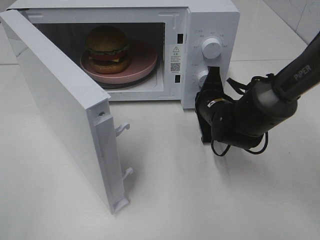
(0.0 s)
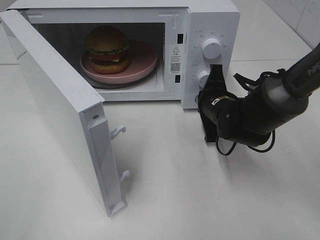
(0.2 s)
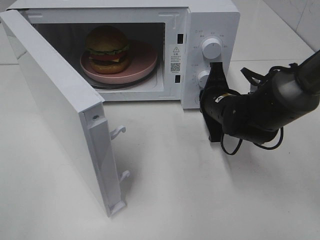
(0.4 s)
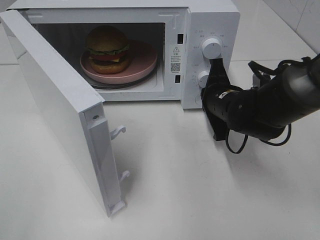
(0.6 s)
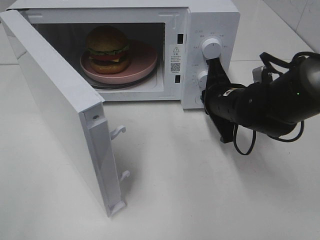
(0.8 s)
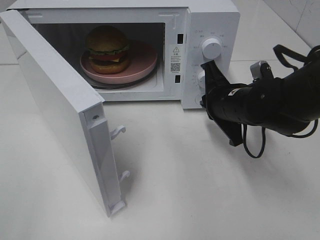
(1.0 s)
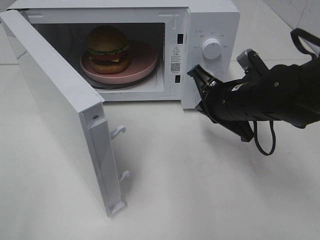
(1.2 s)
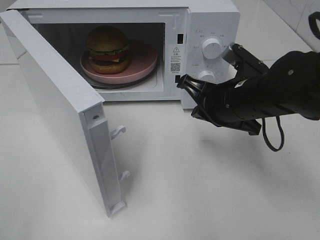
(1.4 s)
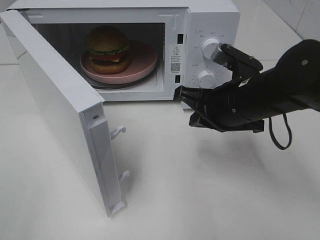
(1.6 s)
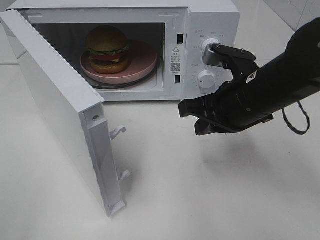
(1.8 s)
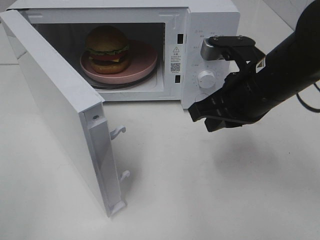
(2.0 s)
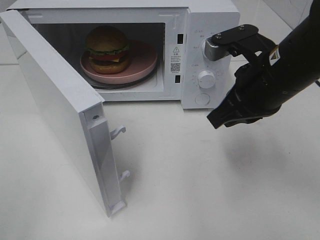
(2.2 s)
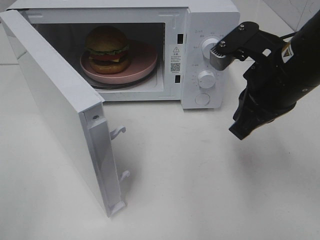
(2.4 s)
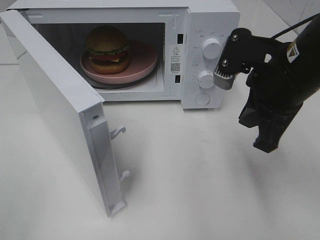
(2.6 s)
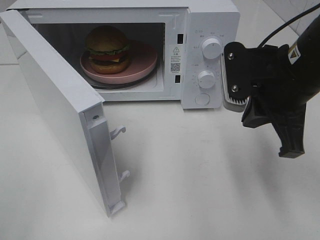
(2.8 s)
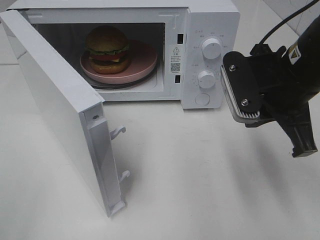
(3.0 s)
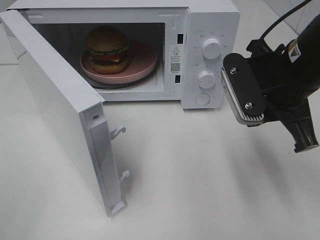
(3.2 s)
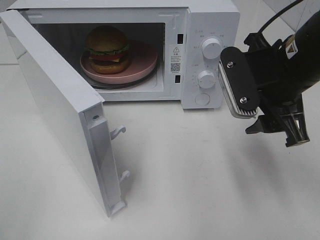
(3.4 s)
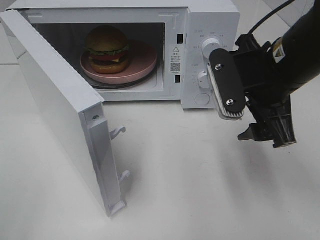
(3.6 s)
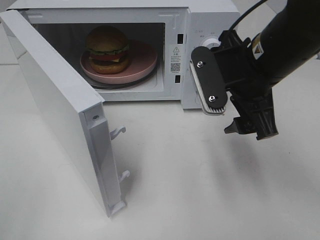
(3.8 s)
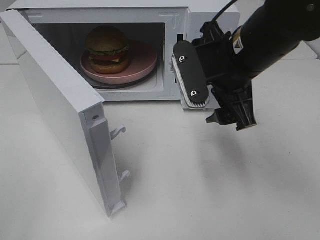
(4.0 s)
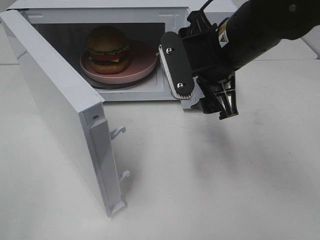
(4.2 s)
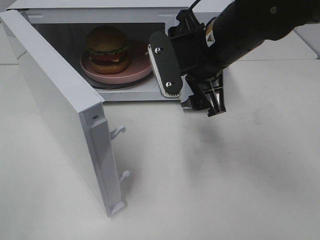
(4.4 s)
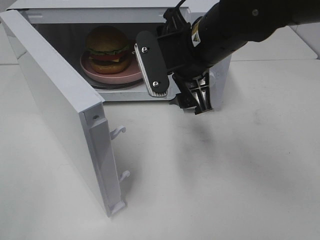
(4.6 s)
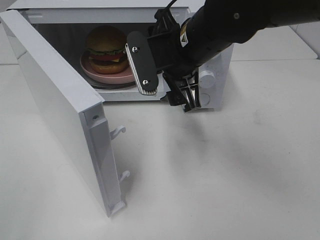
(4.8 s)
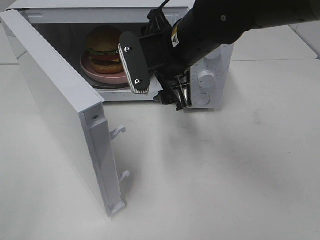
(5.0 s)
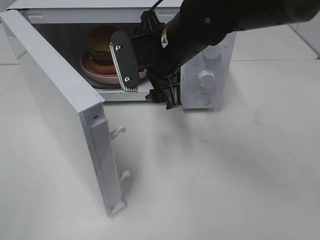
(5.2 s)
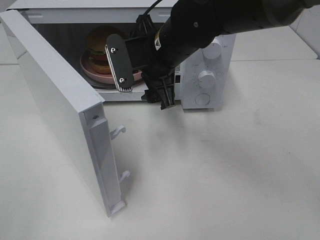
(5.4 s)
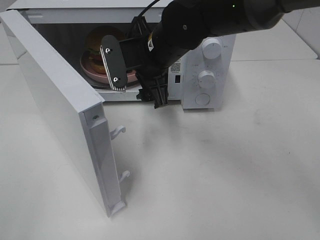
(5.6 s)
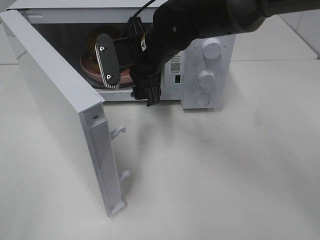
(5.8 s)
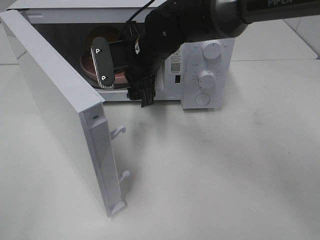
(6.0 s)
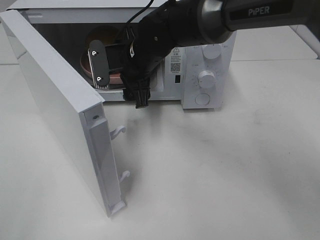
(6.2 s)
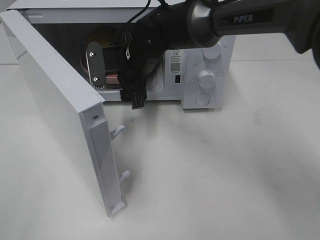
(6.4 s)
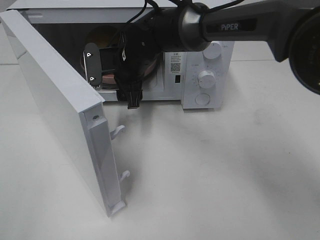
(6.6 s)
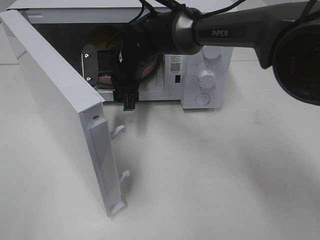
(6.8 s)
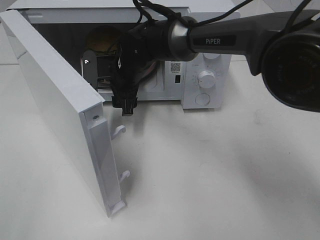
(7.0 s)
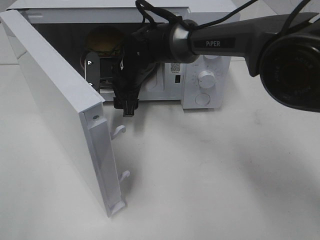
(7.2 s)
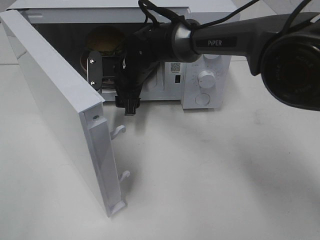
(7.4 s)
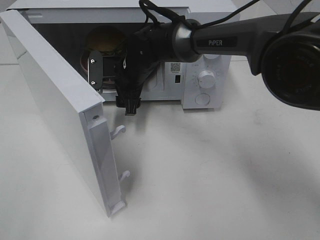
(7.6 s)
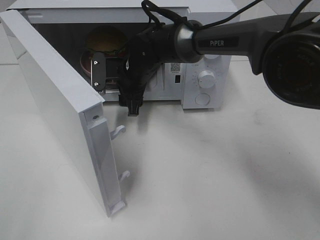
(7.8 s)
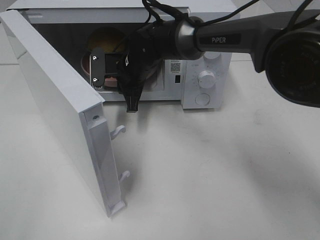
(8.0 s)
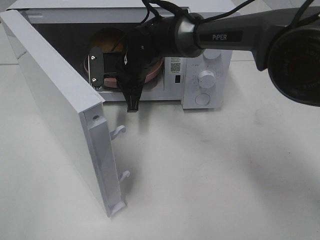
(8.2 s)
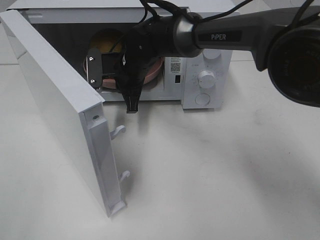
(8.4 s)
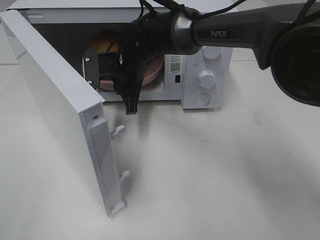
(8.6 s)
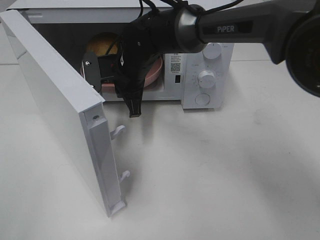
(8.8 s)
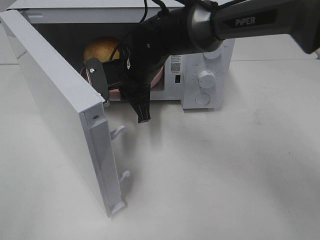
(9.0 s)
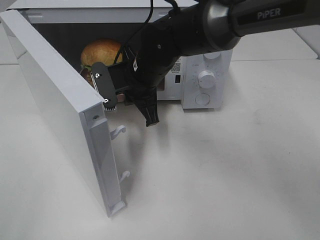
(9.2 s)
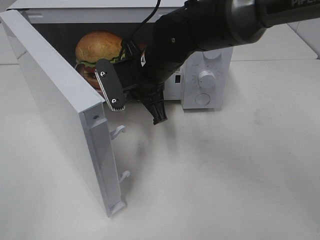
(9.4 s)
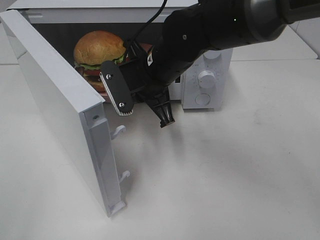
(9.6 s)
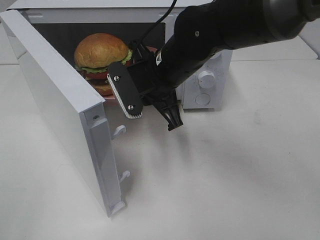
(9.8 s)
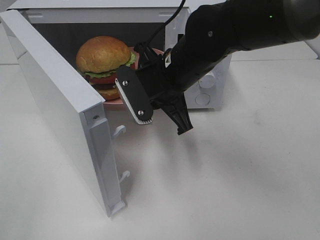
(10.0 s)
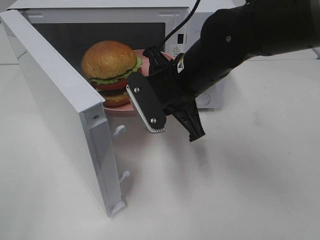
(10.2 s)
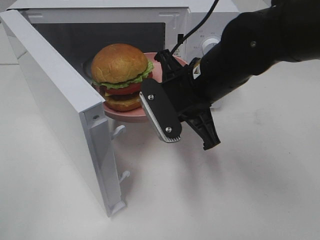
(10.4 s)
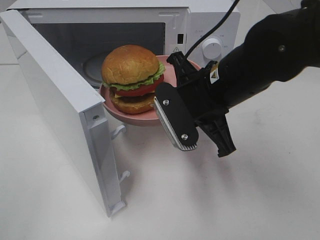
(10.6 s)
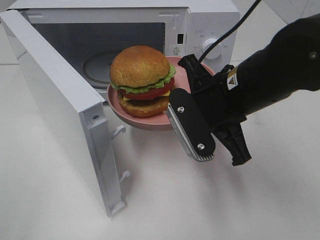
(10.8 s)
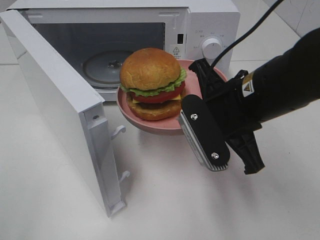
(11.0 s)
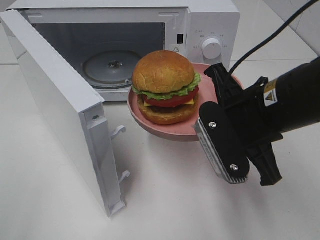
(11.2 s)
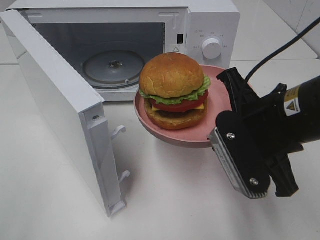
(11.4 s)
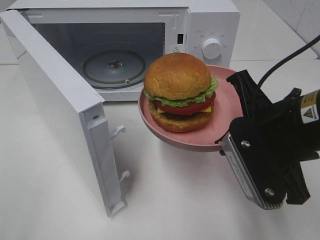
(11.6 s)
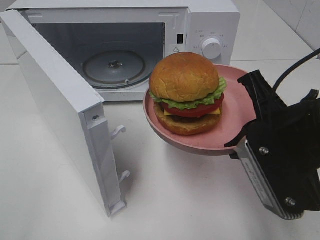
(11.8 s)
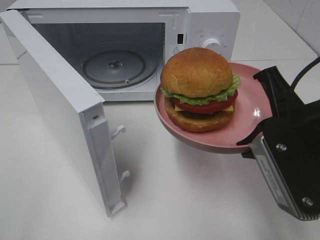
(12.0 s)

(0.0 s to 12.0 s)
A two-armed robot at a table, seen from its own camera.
Task of the whole recording: Heat the burger.
Step, 1.2 s - 8.0 s: Right hand: grab the plate with the hamburger.
0.0 s - 1.6 s: The right gripper moves upward and backward, roughly 15 cm.
1.6 s - 3.0 s: The right gripper moves upward, approximately 5 cm.
3.0 s - 4.4 s: The right gripper is displaced to the left and forward by approximately 10 cm, and opens its fingers.
4.4 s - 6.0 s: The right gripper travels to the left, forward and downward by about 15 cm.
6.0 s - 7.6 s: The right gripper heads downward and forward, covering about 10 cm.
7.6 s - 9.0 s: The right gripper shifts by approximately 5 cm, and closes.
9.0 s - 10.4 s: The right gripper moves backward and to the right, some 15 cm.
10.4 s - 12.0 s: The right gripper shifts some 15 cm backward and to the right.

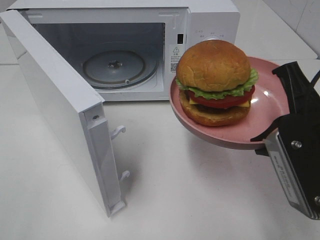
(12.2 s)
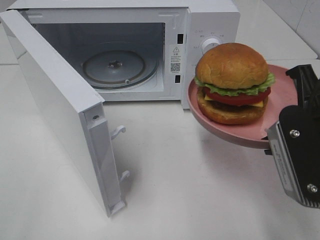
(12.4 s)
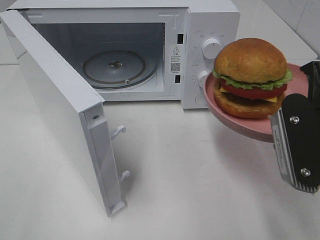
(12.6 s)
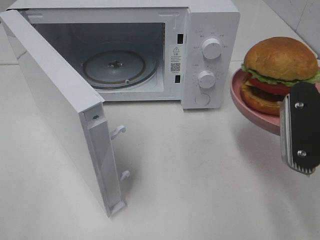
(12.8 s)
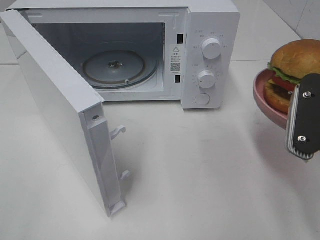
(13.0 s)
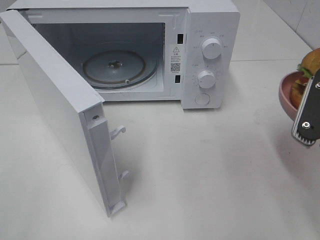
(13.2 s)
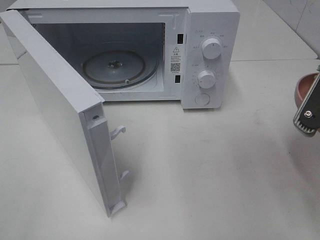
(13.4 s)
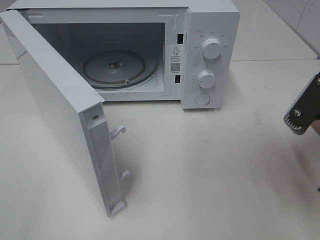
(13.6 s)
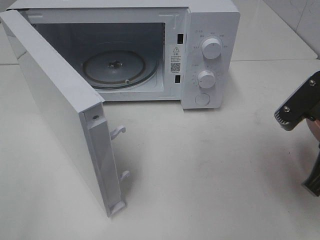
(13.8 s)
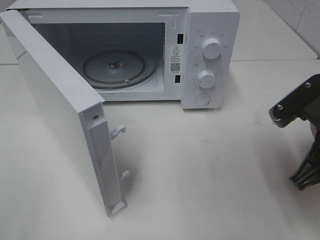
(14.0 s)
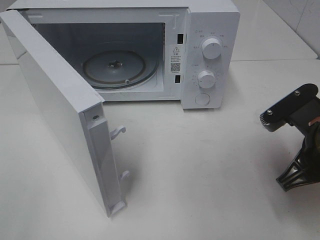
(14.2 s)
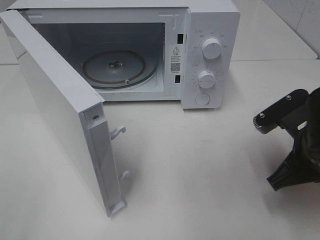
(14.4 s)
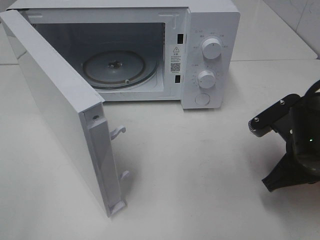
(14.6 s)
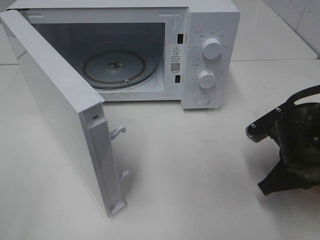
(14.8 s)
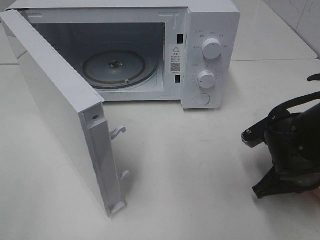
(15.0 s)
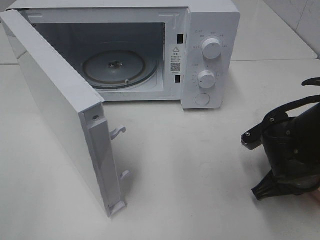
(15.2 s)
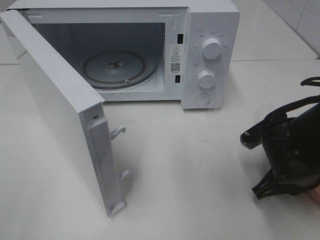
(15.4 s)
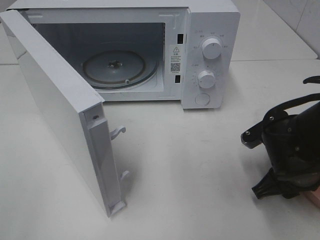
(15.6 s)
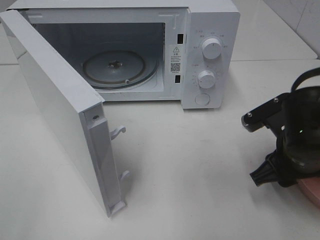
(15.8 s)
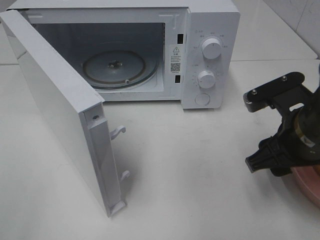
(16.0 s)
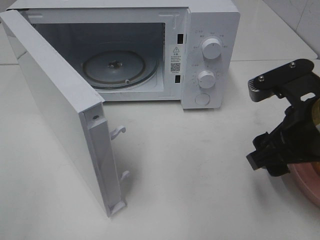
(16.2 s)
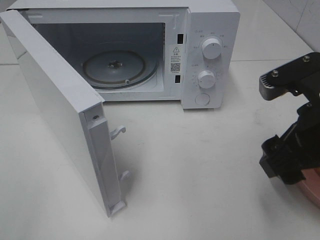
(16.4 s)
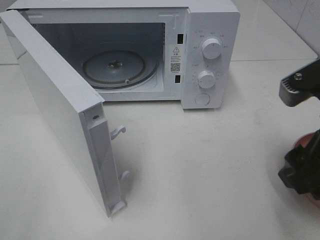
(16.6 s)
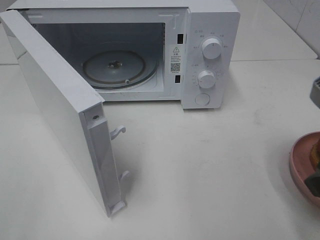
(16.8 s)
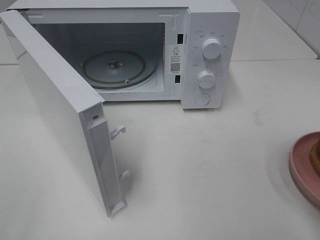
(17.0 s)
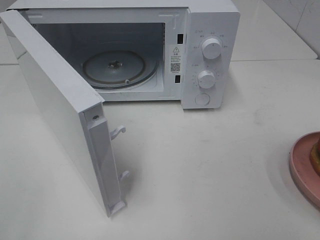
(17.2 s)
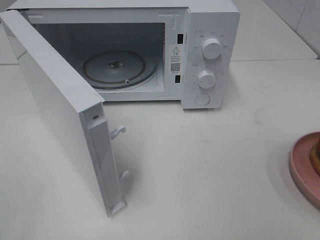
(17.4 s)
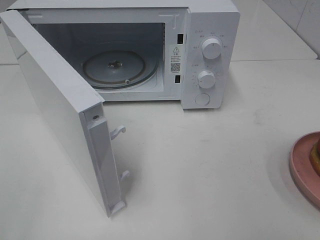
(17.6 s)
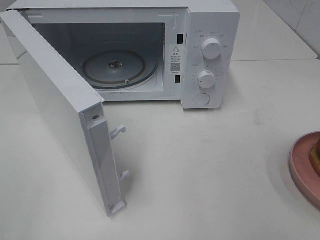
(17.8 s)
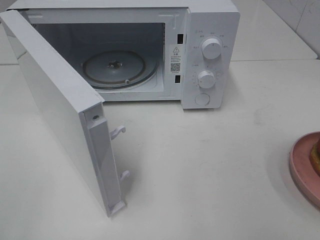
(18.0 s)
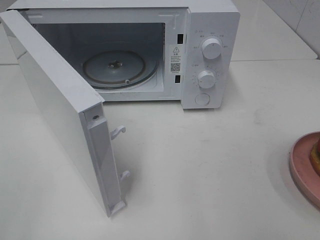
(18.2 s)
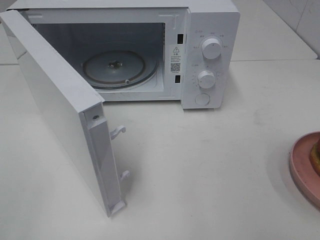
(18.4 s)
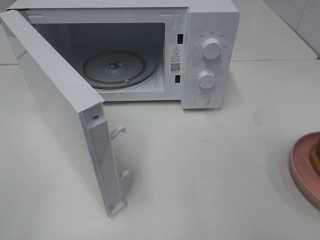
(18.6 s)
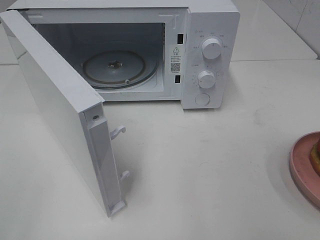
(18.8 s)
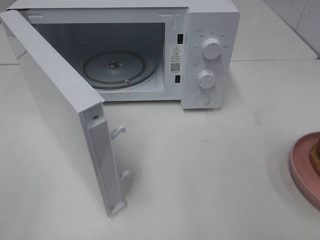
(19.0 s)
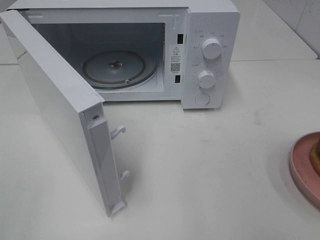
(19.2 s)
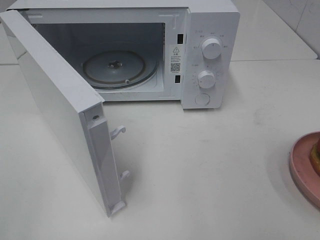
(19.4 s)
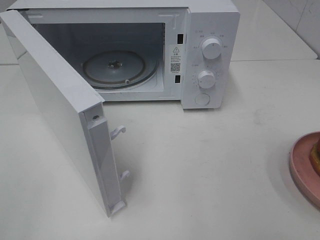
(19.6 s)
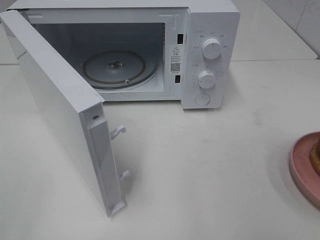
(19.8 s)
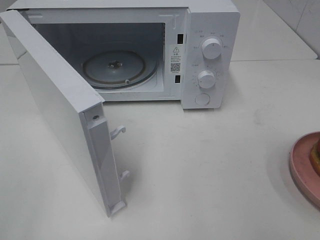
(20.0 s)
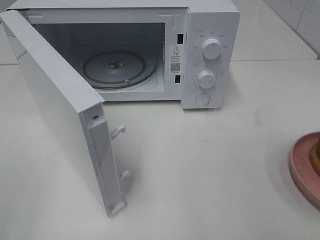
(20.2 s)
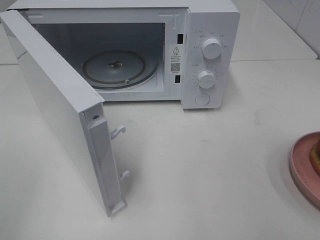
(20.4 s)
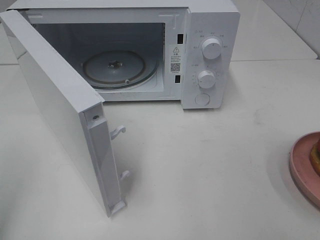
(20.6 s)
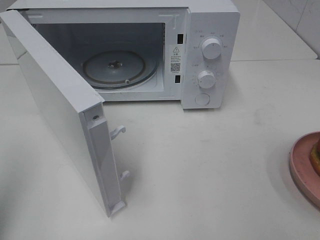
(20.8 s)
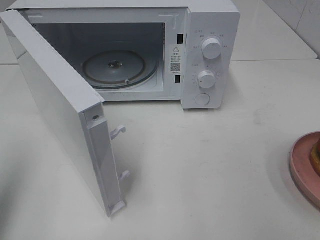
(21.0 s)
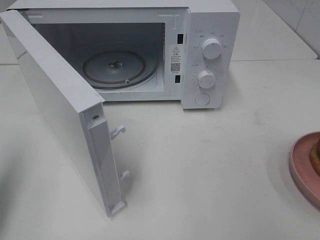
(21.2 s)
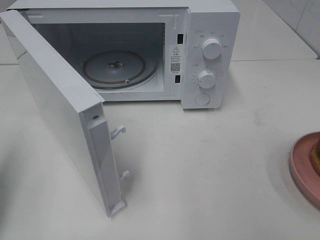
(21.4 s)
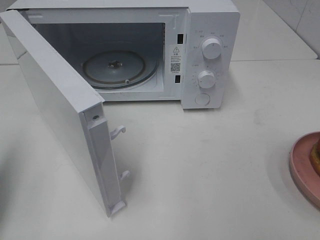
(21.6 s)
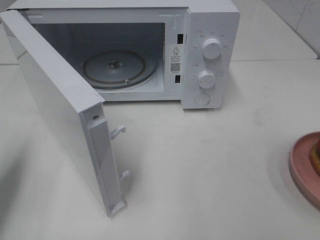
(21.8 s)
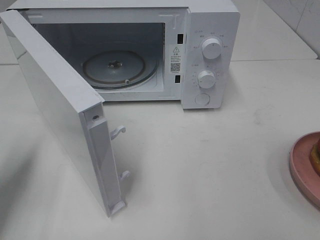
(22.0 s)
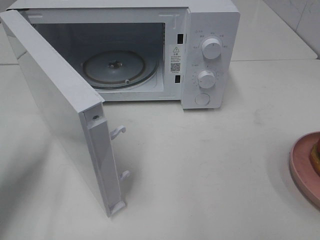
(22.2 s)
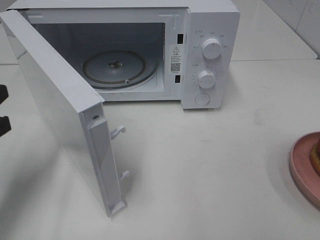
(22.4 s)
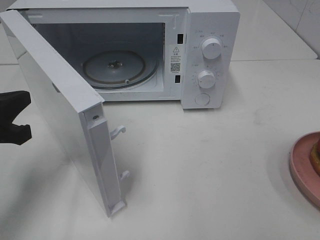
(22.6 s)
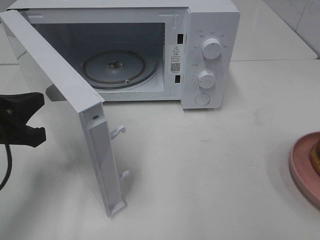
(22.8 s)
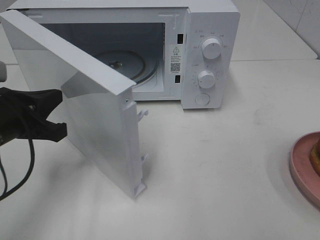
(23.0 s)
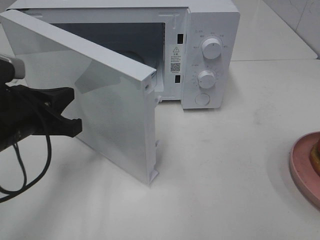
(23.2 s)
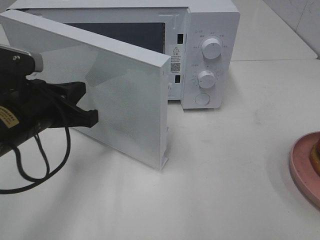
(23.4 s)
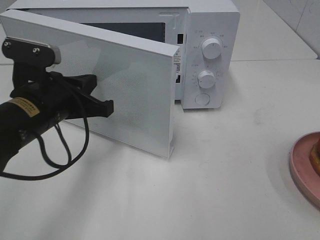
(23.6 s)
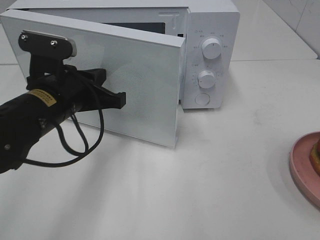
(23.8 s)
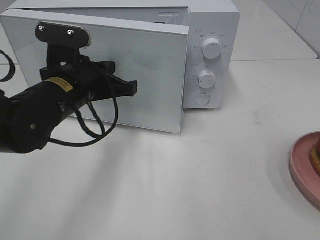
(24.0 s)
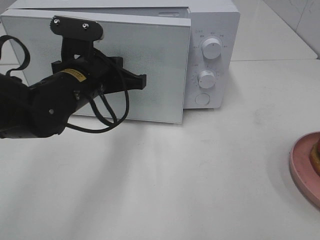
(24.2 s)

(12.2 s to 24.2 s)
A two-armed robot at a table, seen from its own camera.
Task of the whole recording: Heat the burger.
Step, 12.2 s - 15.8 s: Right hand: place the plate on the table.
12.2 s - 13.8 s: The right gripper changes place by approximately 5 cm.
13.8 s - 15.2 s: The right gripper goes about 10 cm downward.
15.2 s - 16.6 s: The right gripper is displaced upward and backward by roughly 15 cm, and opens up.
16.6 s - 18.2 s: The right gripper heads backward and to the right, covering approximately 15 cm.
18.2 s - 19.8 s: The two grippers keep their place.
19.8 s - 21.2 s: The left gripper is displaced forward by about 15 cm, and closes its fingers.
21.2 s - 22.6 s: The left gripper shifts approximately 15 cm downward, forward and to the right.
22.6 s - 24.2 s: The left gripper moves to the right and forward, approximately 20 cm.
